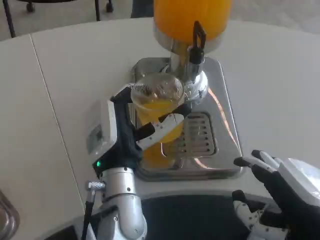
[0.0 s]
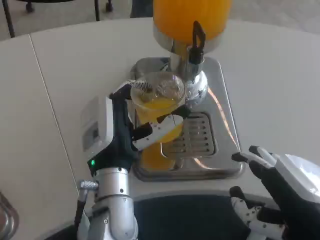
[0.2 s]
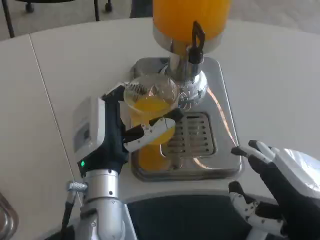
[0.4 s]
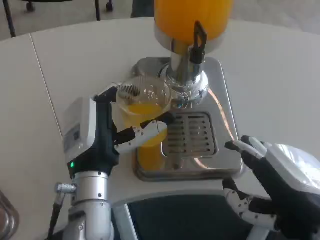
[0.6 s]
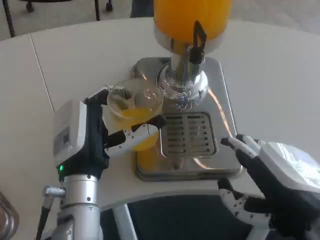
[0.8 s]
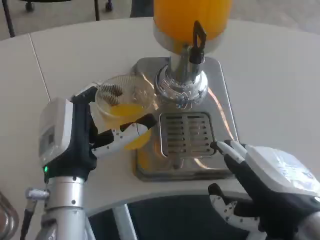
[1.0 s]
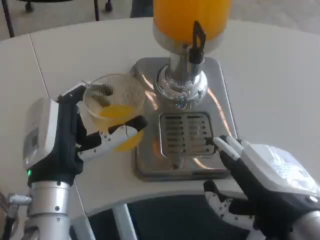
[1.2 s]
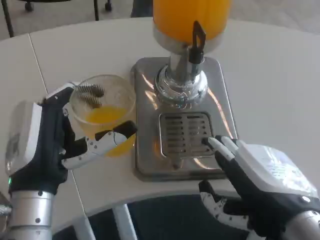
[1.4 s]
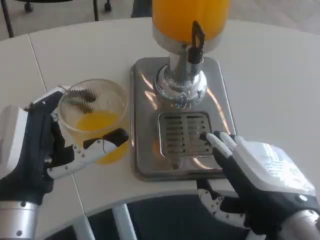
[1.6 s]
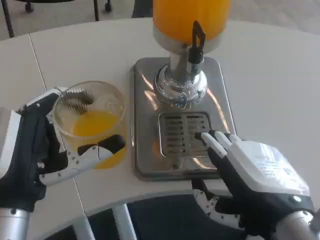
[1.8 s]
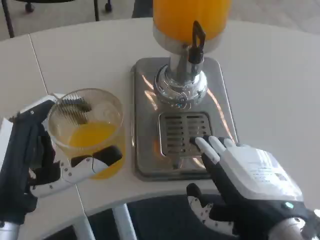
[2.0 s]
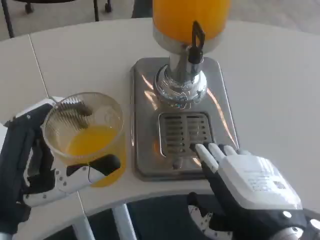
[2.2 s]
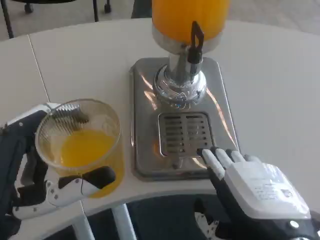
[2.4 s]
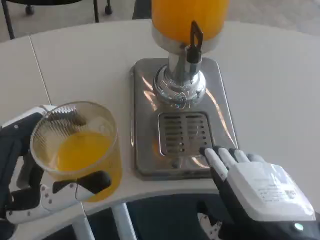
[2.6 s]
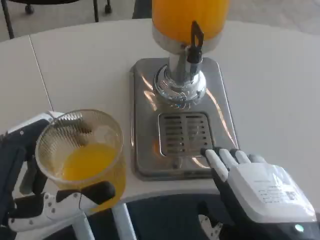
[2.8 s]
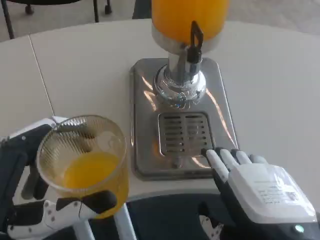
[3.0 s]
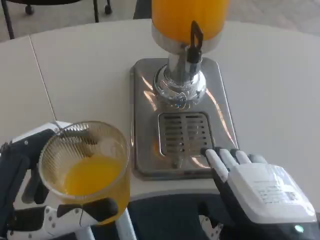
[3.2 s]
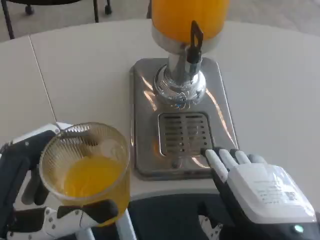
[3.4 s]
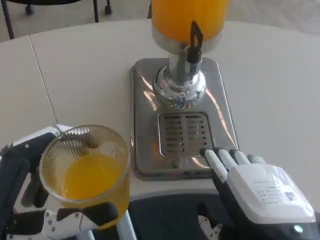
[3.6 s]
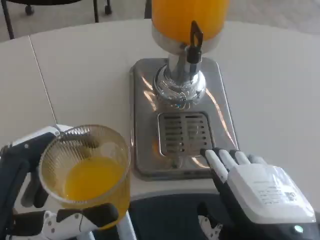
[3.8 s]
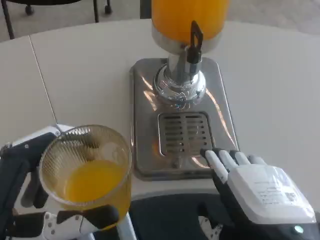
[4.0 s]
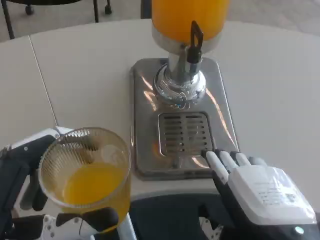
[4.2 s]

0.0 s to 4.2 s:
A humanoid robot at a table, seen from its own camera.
Task of the whole recording: Grasp the cup under the faucet to collect the drink, then remove the cup.
0.0 to 1.4 s: The left hand goes roughly 10 cm to the left and backward.
1.4 to 2.8 s: The left hand goes some 10 cm backward.
2.8 to 4.2 s: There are only small adjustments of the hands.

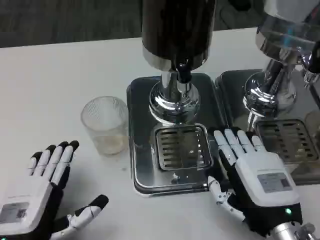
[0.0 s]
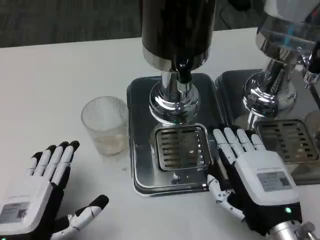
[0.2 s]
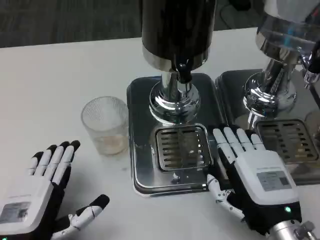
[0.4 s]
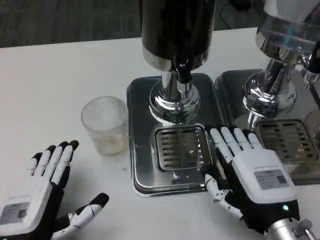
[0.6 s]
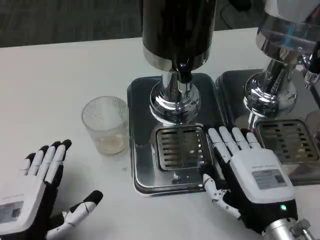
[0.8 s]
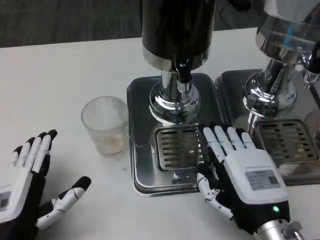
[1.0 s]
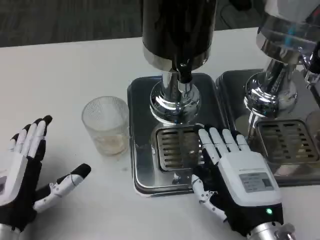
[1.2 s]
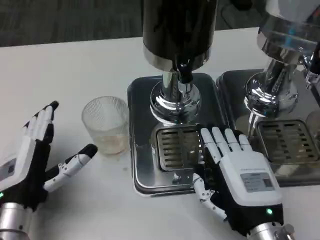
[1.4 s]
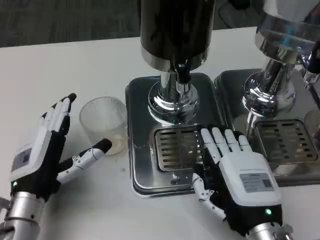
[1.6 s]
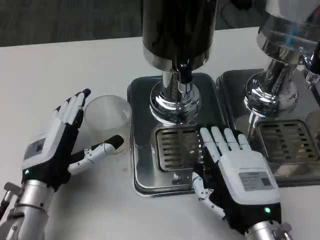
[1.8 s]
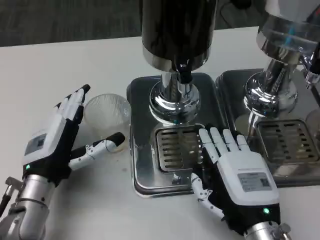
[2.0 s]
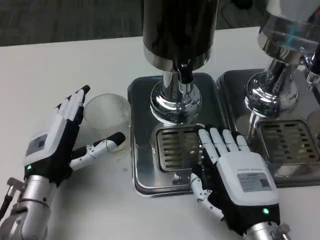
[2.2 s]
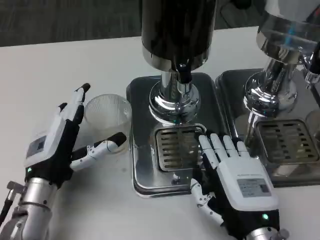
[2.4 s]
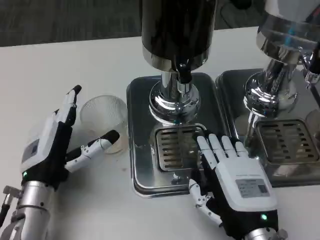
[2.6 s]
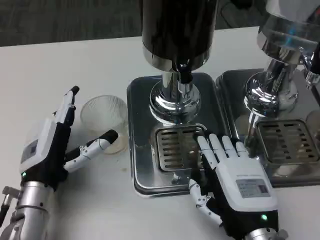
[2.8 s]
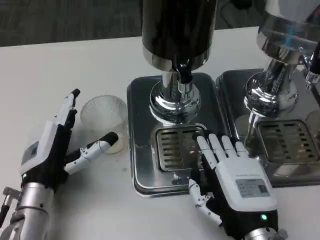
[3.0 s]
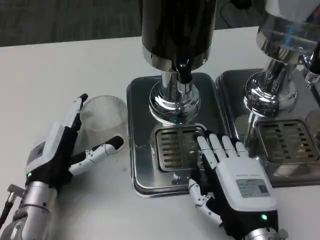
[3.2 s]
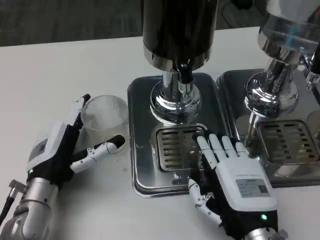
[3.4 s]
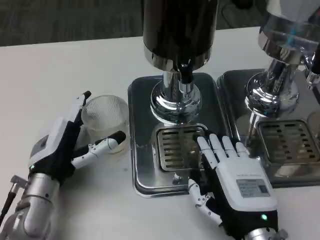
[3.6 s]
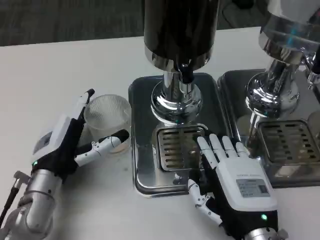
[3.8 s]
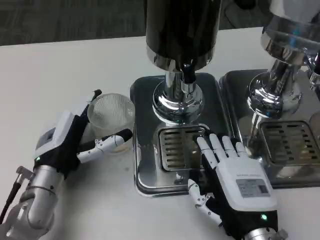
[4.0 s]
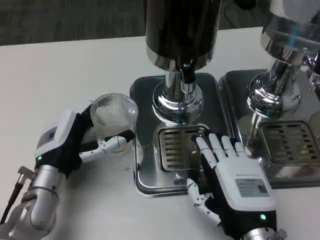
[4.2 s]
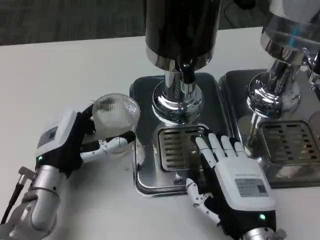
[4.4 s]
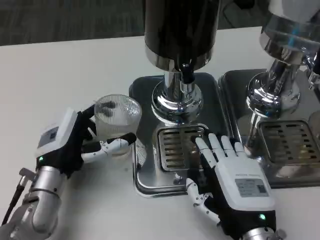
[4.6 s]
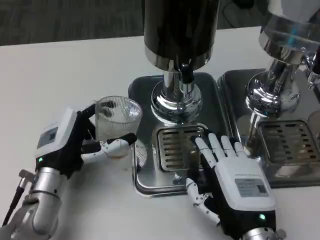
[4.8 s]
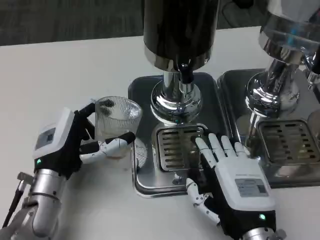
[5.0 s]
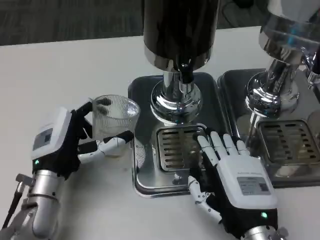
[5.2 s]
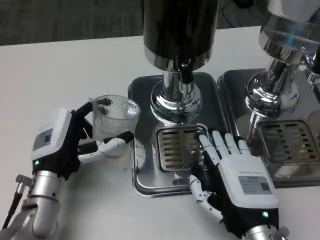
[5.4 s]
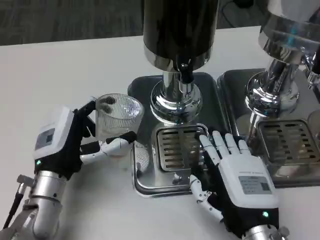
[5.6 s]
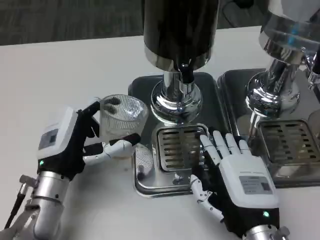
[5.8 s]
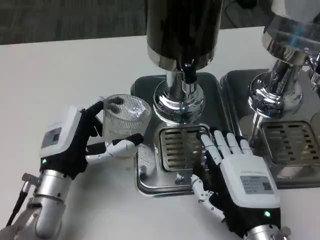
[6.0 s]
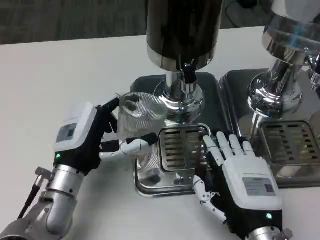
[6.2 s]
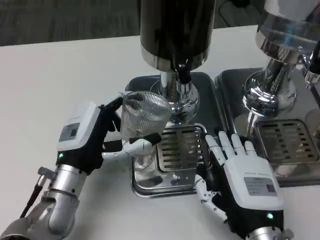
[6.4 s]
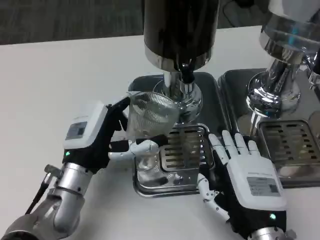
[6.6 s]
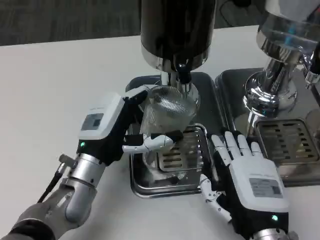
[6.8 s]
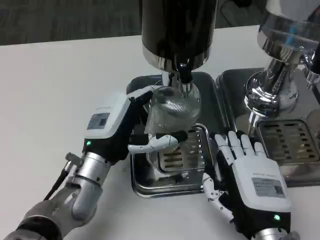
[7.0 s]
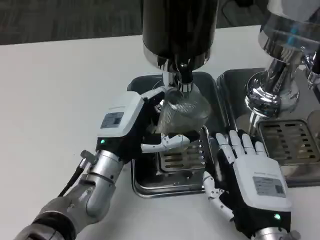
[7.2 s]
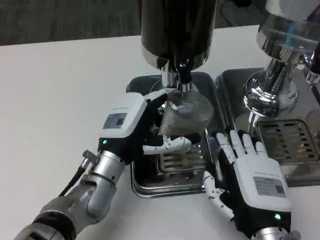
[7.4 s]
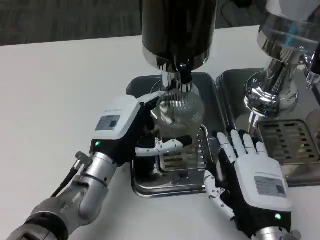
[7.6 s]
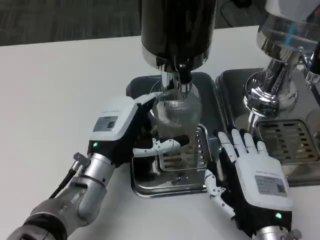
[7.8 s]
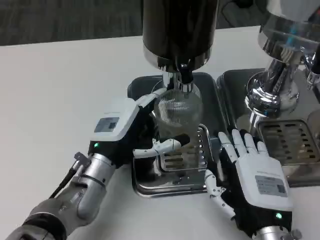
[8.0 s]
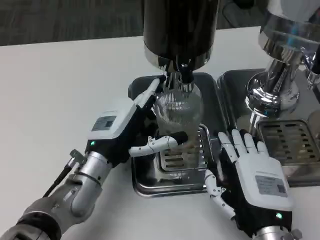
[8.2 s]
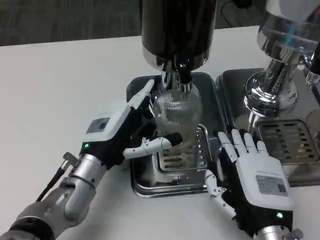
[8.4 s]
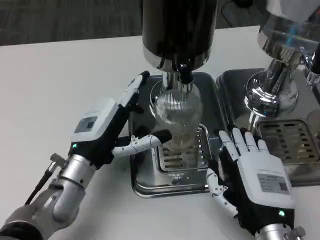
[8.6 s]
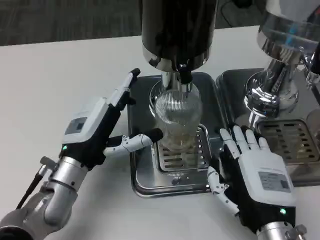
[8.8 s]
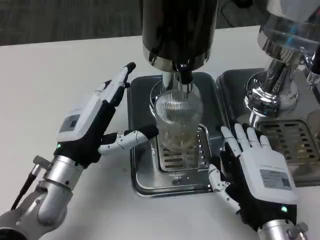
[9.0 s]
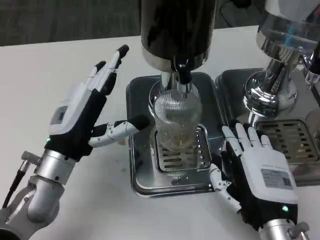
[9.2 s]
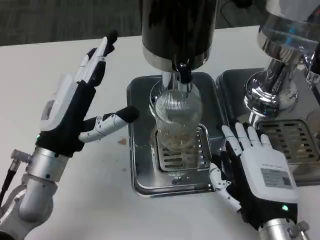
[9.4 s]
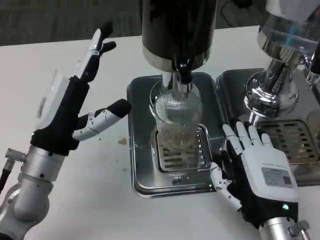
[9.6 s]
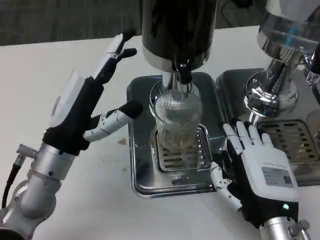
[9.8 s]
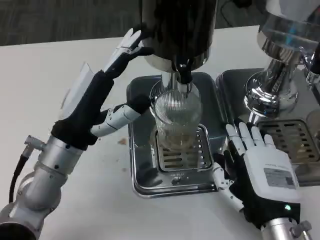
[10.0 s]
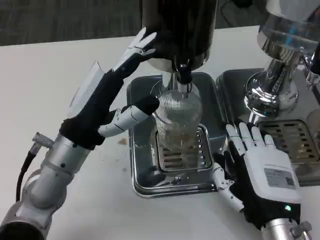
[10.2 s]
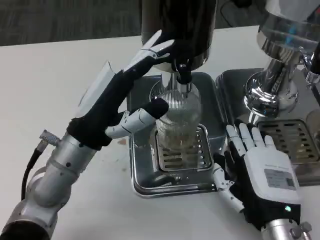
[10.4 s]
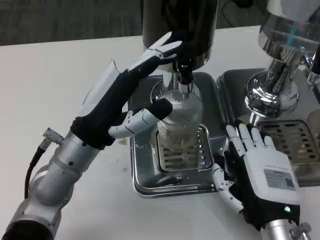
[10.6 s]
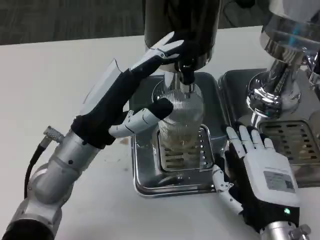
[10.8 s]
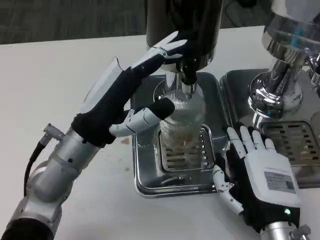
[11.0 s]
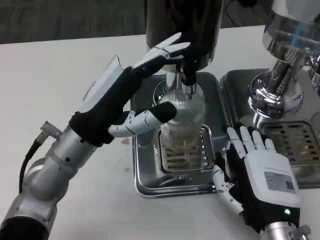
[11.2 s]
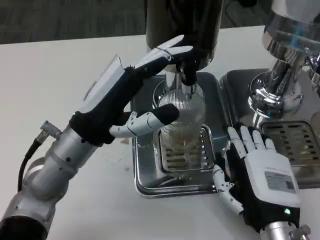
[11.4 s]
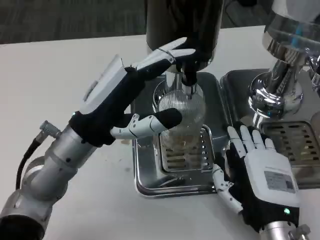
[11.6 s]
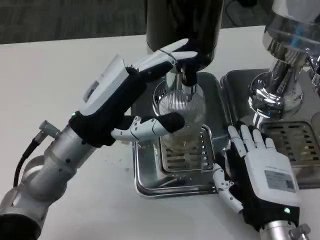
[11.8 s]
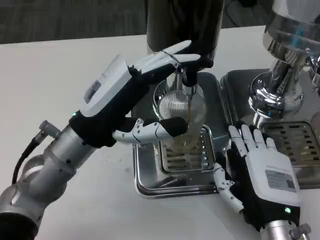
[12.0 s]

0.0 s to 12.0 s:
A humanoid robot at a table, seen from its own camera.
Task of the whole recording: Grasp the cup under the faucet to collect the drink, then remove the cup.
0.0 to 1.6 s: The left hand heads forward, covering some 10 cm.
1.6 to 3.0 s: There are only small adjustments of the hands.
6.0 to 7.6 s: The left hand goes roughly 5 cm to the right.
7.6 to 9.0 s: The left hand shifts by approximately 5 cm.
9.0 to 10.4 s: The left hand changes place by some 5 cm.

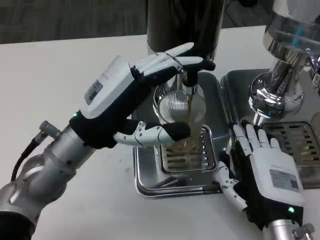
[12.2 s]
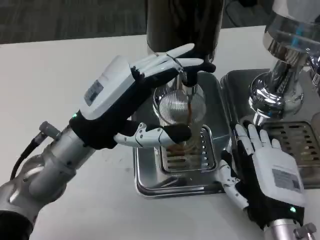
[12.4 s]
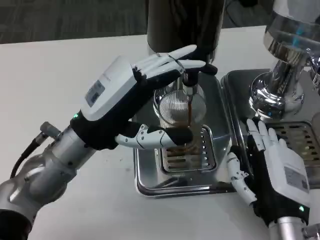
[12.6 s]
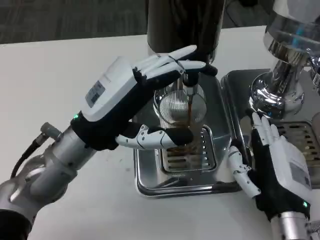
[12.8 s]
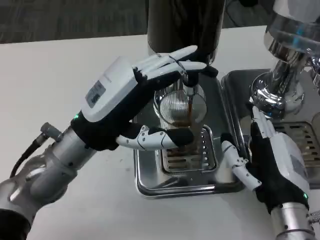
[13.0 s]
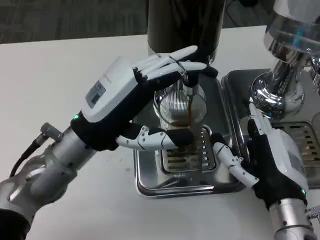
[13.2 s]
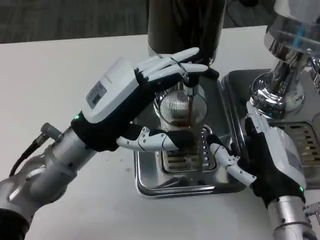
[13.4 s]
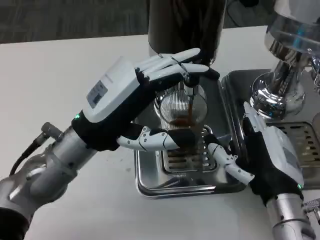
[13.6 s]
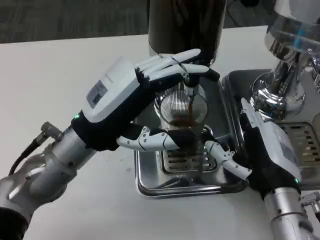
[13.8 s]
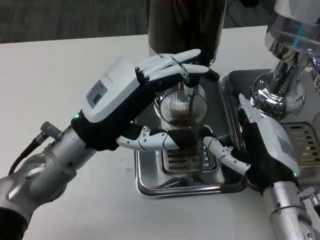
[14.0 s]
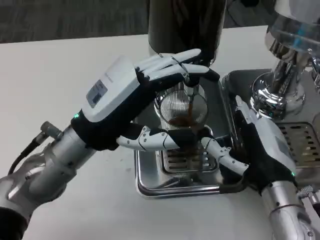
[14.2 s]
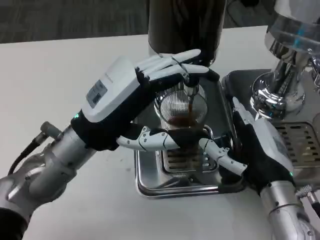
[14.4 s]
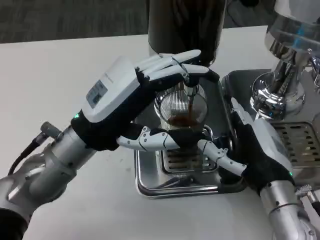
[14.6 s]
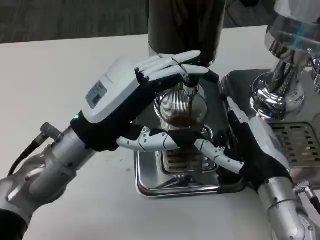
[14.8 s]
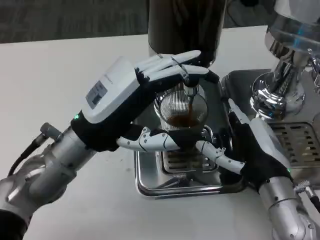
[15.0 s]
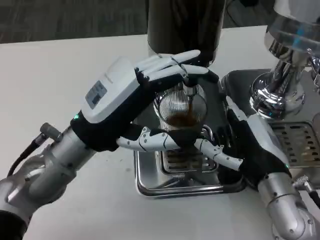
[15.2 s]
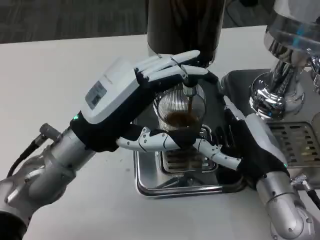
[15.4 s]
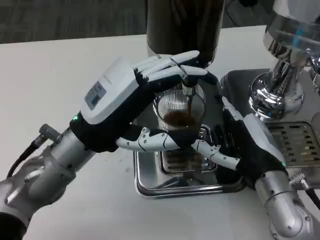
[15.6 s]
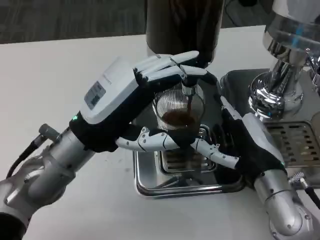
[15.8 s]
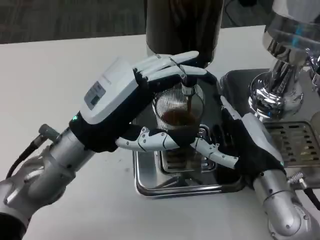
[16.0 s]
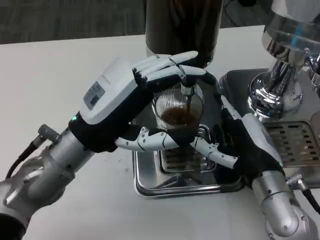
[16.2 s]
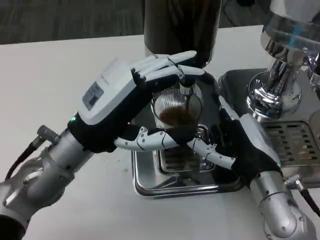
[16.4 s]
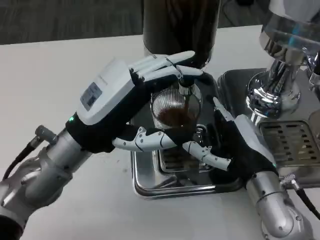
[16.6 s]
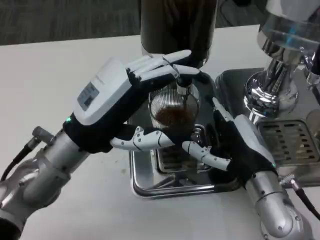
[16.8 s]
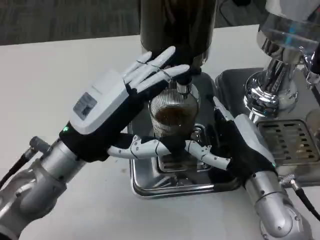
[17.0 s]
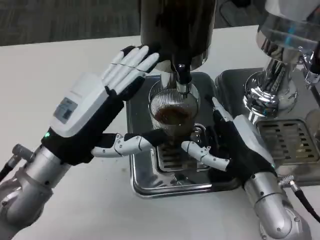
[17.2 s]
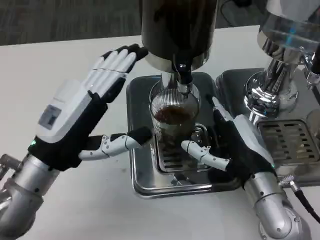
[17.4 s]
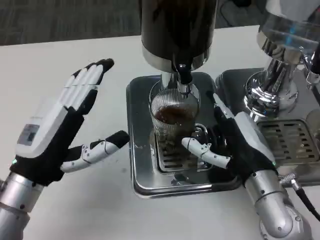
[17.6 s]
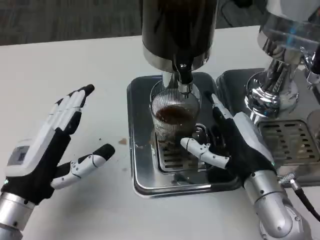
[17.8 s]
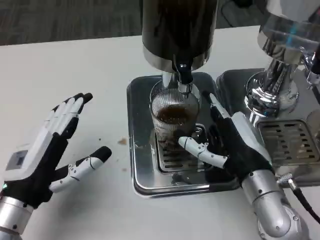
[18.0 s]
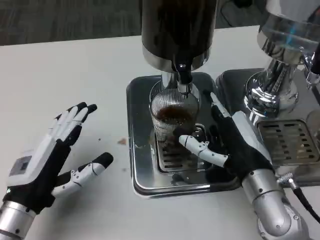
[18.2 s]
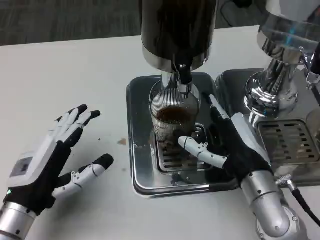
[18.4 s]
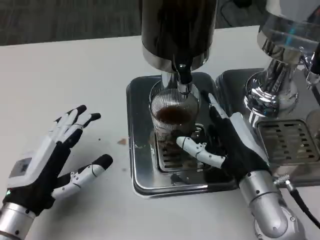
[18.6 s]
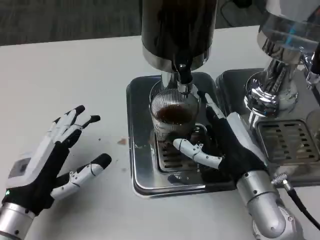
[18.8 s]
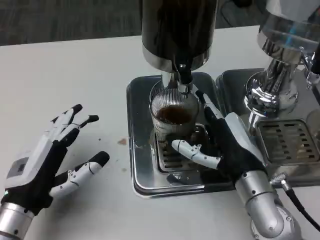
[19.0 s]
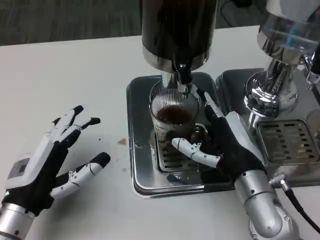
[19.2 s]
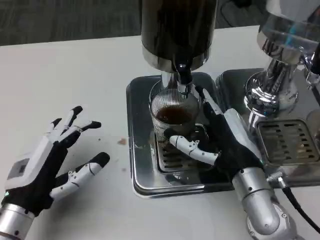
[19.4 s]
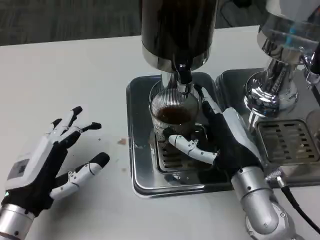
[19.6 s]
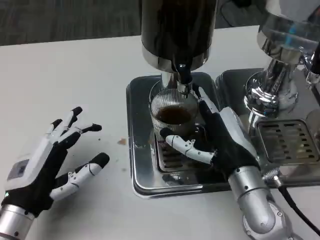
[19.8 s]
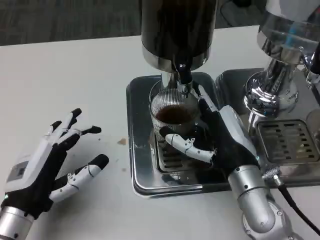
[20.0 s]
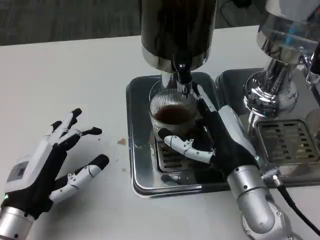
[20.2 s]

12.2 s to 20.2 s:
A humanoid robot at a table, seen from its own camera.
Task of the whole recording: Grasp the cup under the faucet to collect the drink, then remove the cup.
13.8 to 15.4 s: The hands move only a little.
17.0 to 18.6 s: The left hand shifts about 10 cm downward, backward and to the left.
18.6 to 20.2 s: The hands move only a little.
